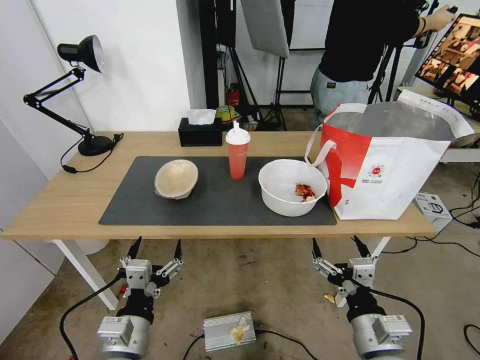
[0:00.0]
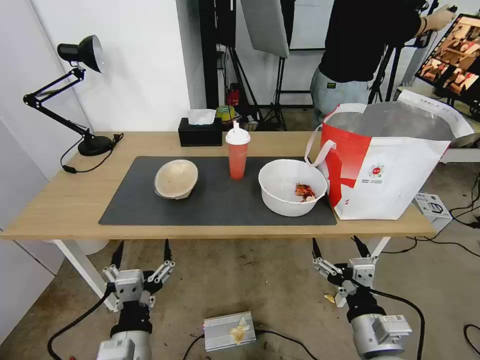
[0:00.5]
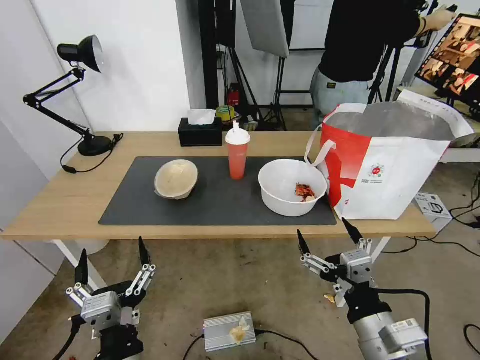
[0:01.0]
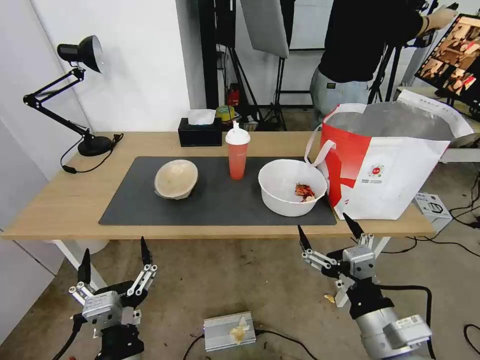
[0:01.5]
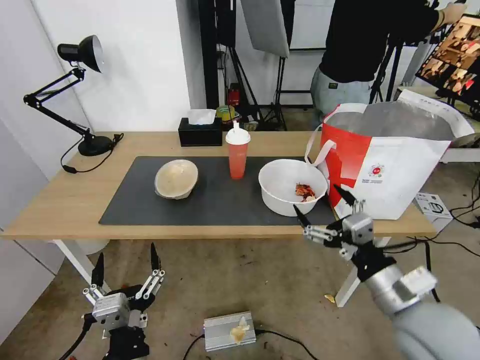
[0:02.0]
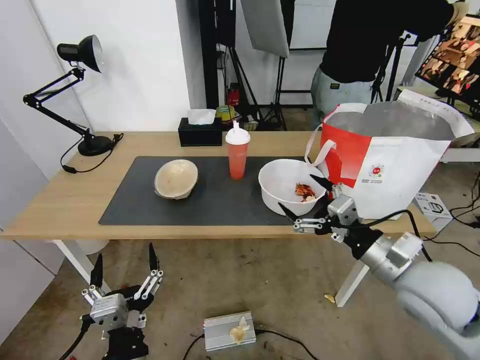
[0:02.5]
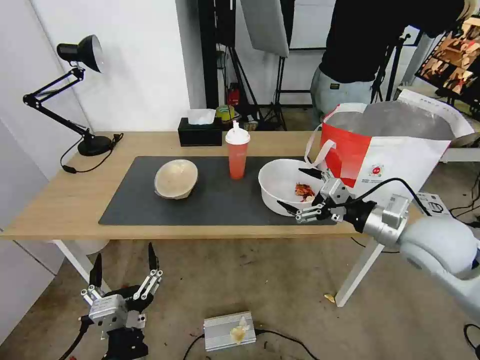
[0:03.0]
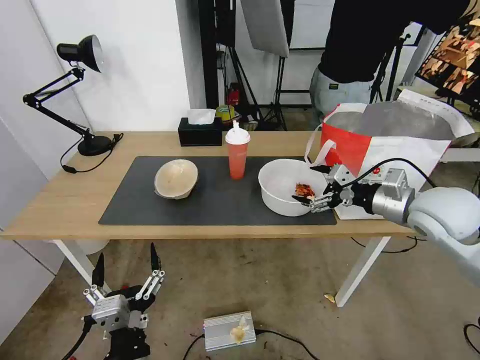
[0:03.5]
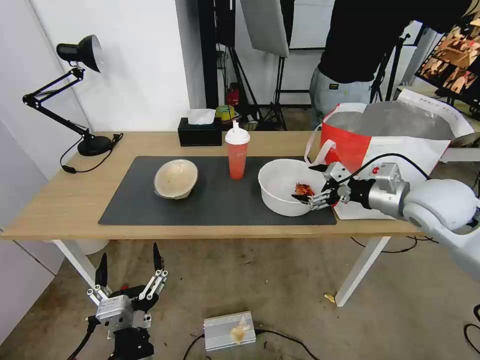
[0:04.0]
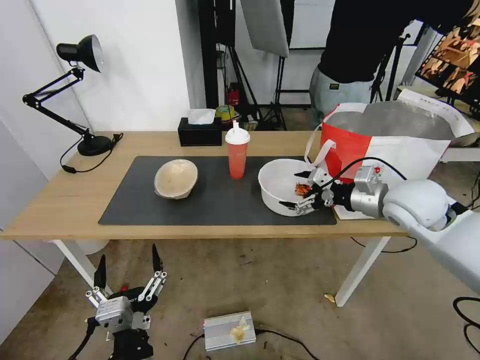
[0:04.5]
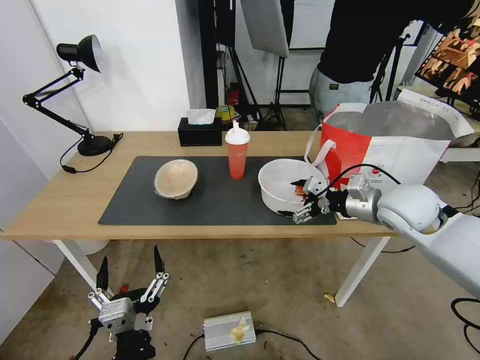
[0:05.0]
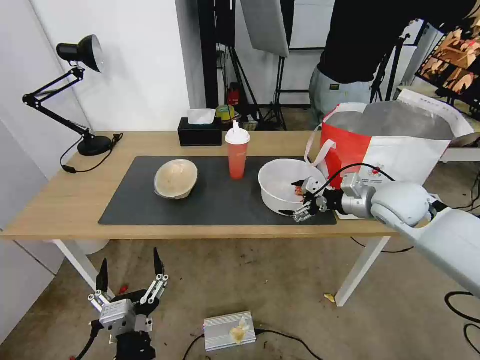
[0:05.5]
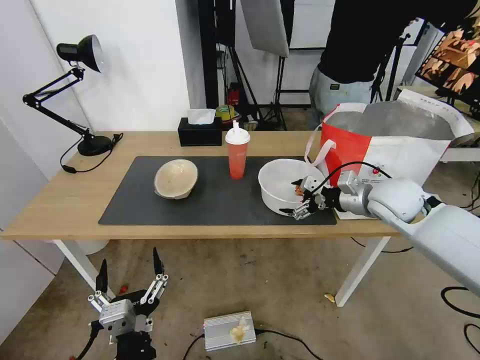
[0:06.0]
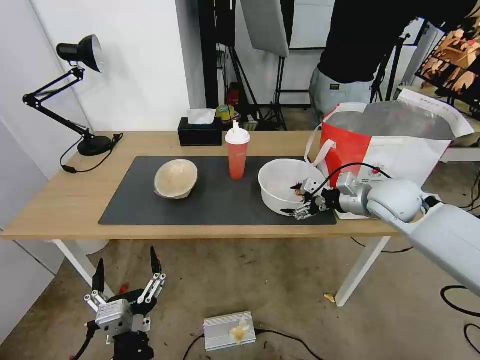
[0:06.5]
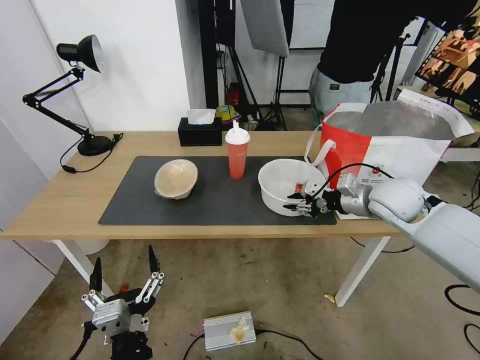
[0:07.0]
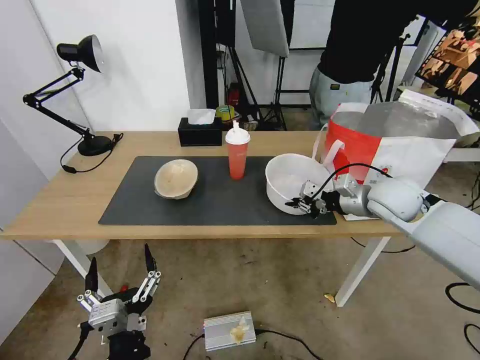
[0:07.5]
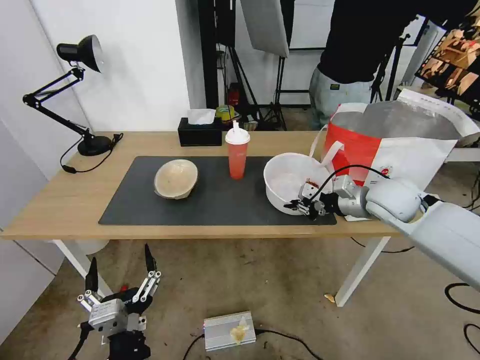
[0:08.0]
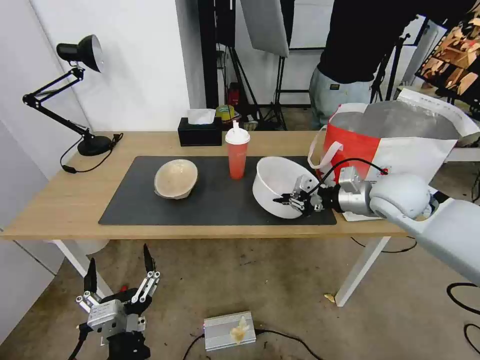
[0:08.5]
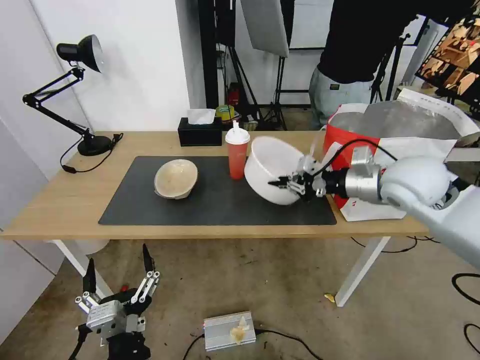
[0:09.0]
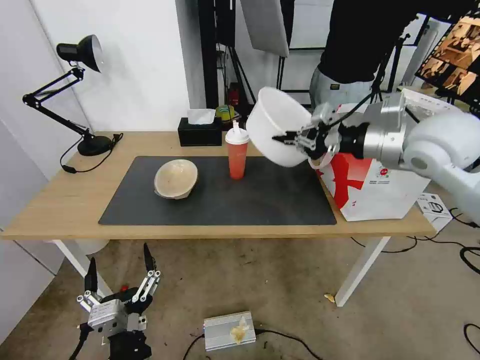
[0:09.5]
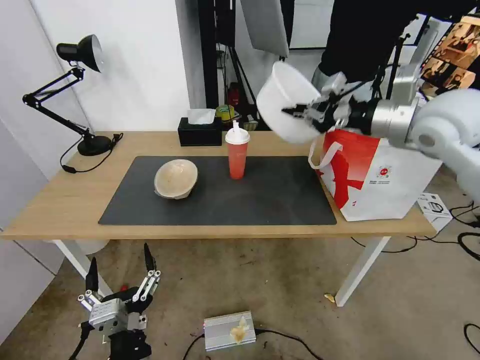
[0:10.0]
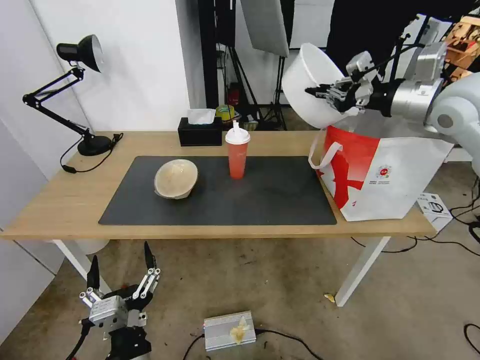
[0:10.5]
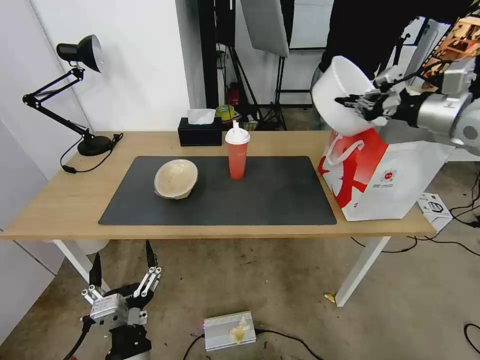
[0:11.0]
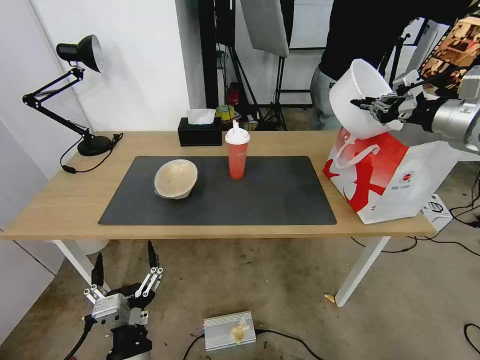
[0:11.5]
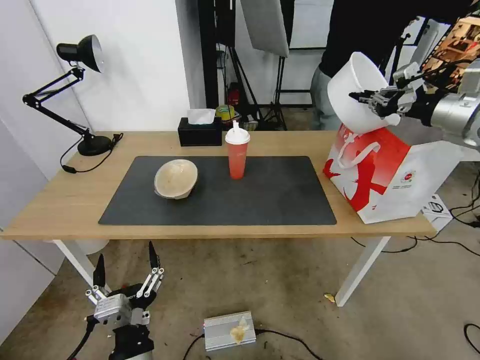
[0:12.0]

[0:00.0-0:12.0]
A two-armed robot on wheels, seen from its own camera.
Task of the whole recording: Pick up the trash from the table and place it into the takeout bag.
0:02.0 to 0:04.0: The right gripper shifts approximately 20 cm forward and to the right.
0:04.0 to 0:06.0: The right gripper travels forward by approximately 5 cm.
0:06.0 to 0:08.0: The right gripper closes up.
0:08.0 to 0:10.0: The right gripper moves upward, some 20 cm.
0:10.0 to 0:12.0: The right gripper moves to the right, about 10 cm.

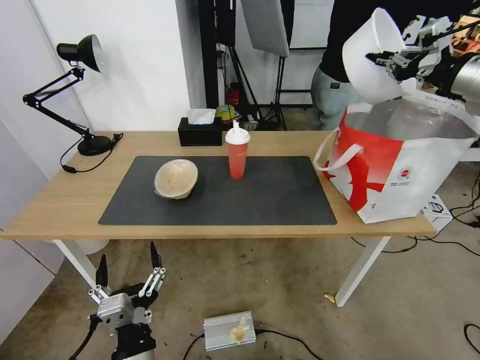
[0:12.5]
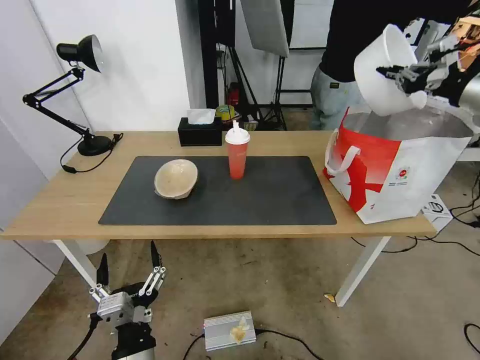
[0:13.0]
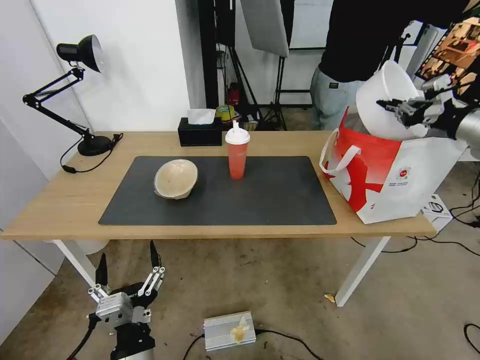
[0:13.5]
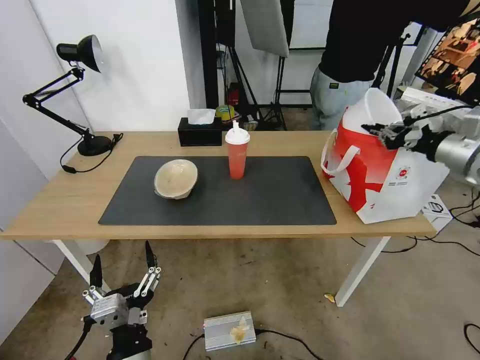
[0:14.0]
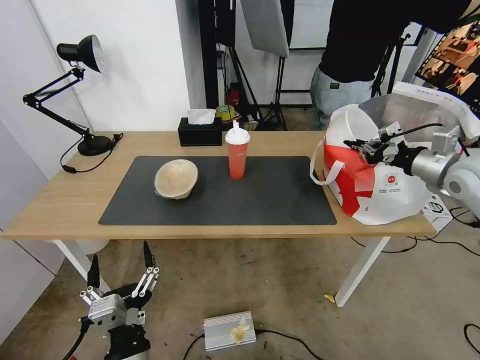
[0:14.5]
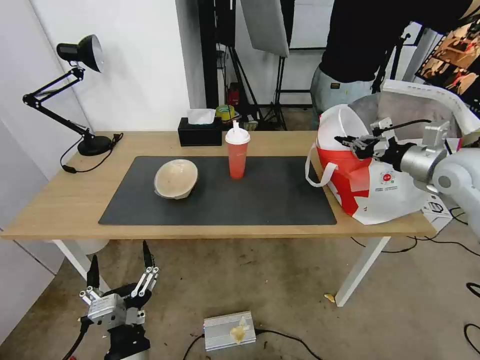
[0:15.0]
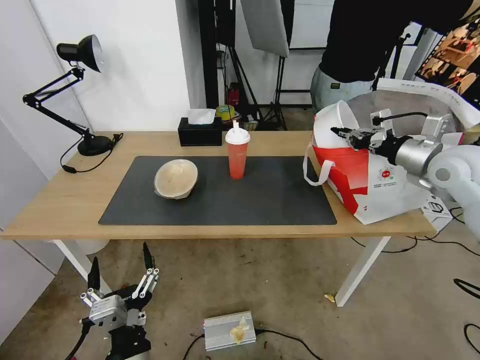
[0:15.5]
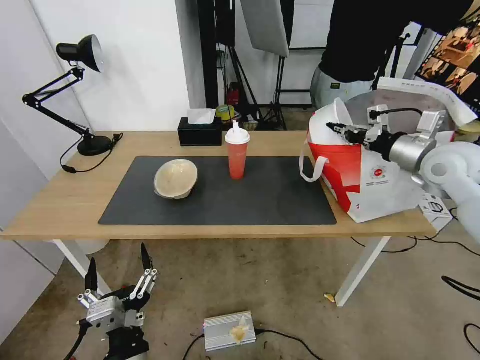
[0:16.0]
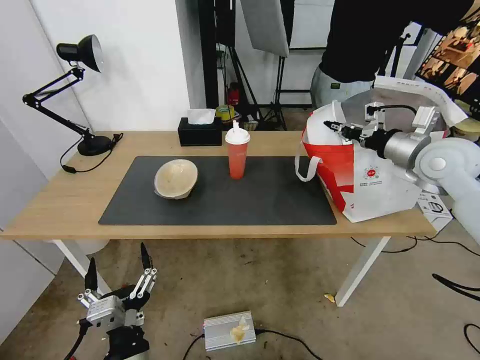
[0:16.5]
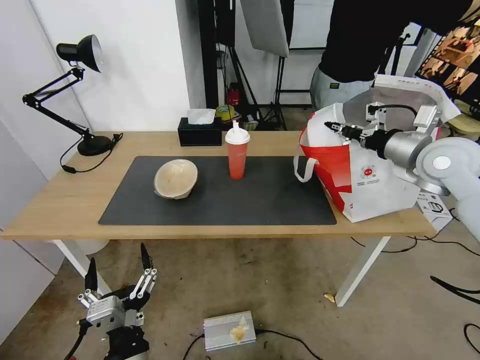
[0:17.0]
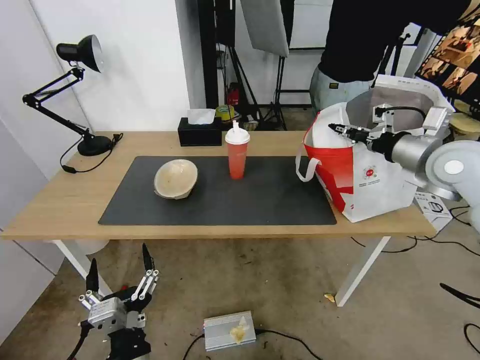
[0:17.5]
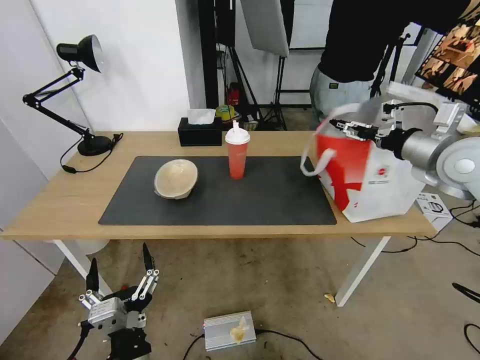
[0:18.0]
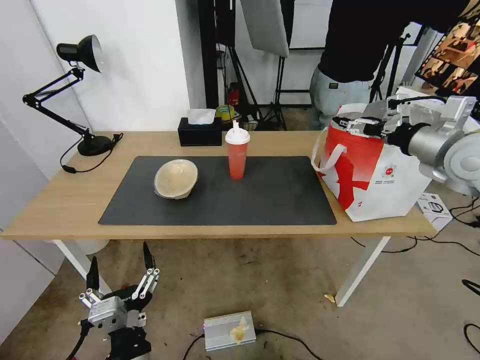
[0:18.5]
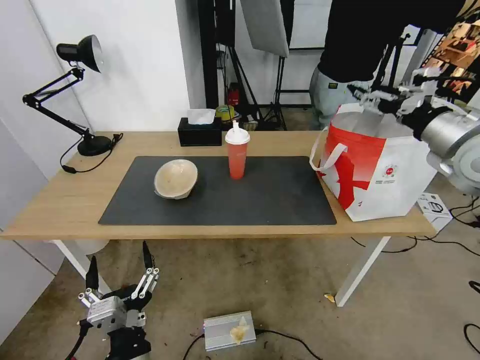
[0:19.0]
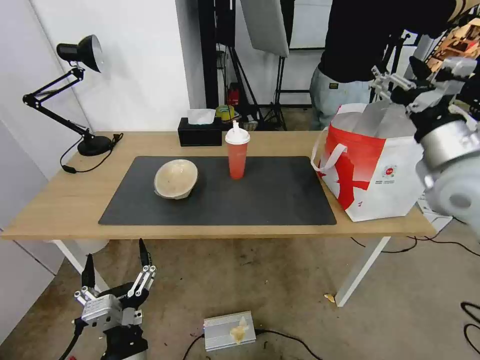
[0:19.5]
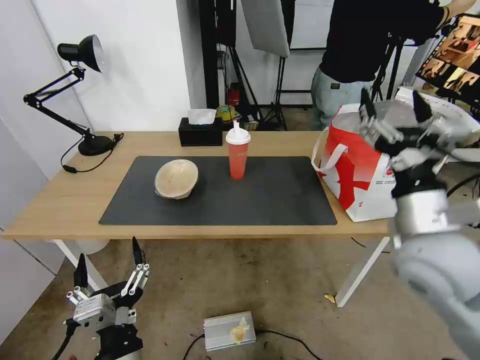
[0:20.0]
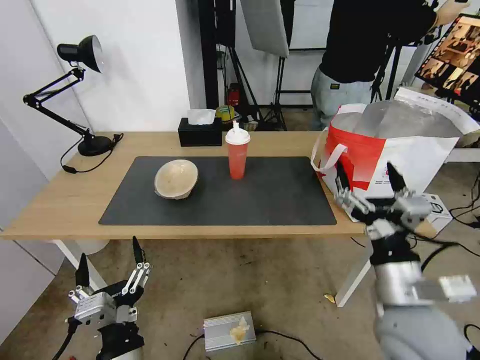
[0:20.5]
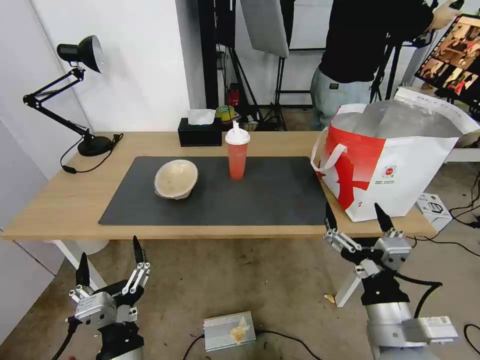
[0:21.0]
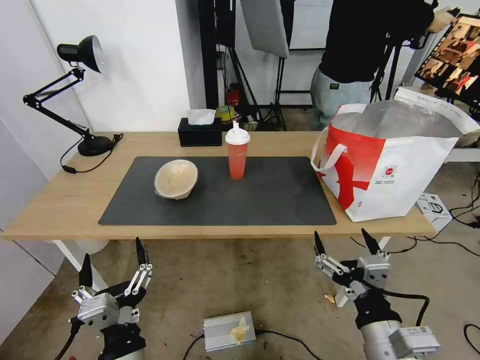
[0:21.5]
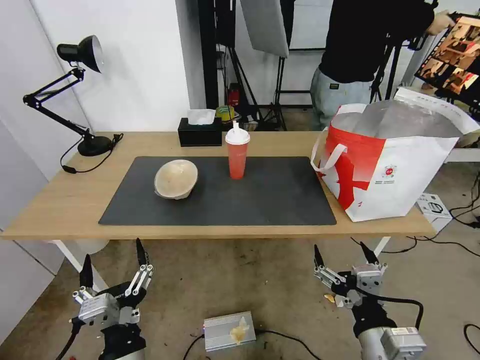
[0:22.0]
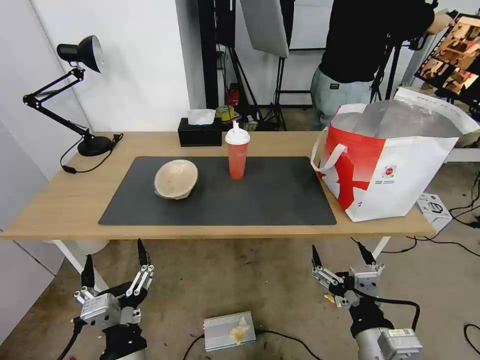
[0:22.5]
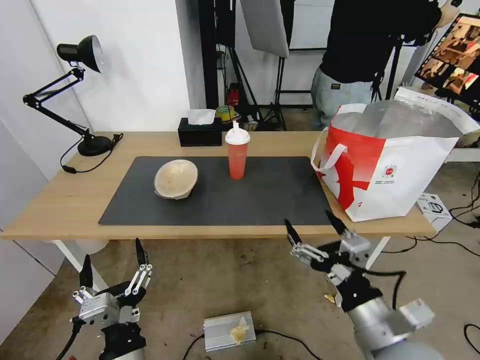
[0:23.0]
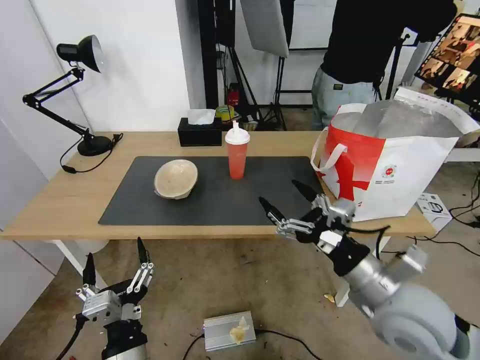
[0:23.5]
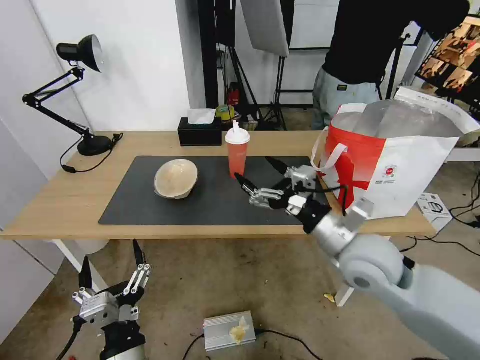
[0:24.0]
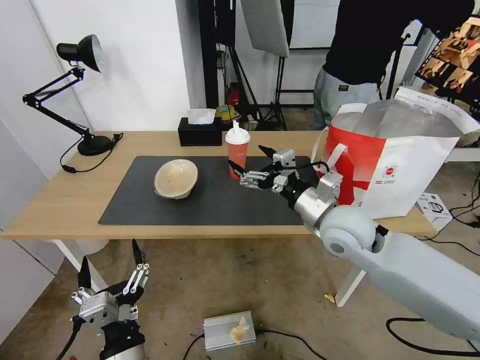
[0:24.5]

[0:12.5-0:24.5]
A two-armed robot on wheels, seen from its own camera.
Task of the whole recording: Pick up the trash from the table and place it into the takeout bag.
0:12.5 to 0:14.5: The right gripper heads downward, covering some 15 cm.
0:14.5 to 0:16.5: The right gripper heads to the left, covering approximately 5 cm.
0:16.5 to 0:18.5: The right gripper moves some 5 cm, and opens.
0:18.5 to 0:20.5: The right gripper moves backward, to the left and downward, some 30 cm.
0:20.5 to 0:22.5: The right gripper shifts some 10 cm backward and downward.
0:22.5 to 0:24.5: The right gripper is displaced forward by about 25 cm.

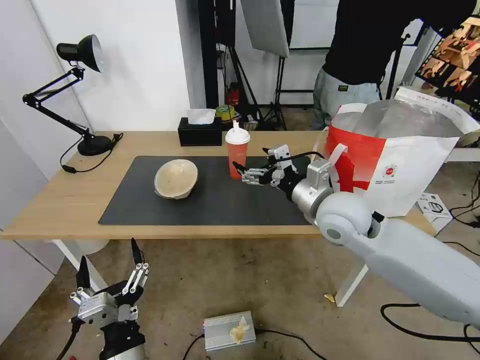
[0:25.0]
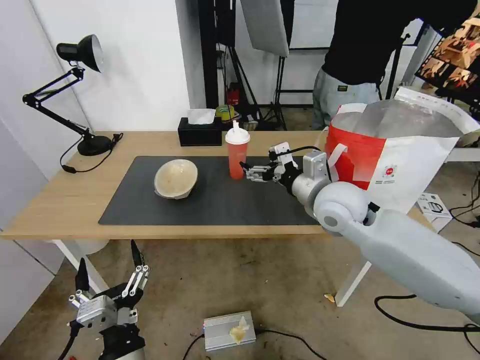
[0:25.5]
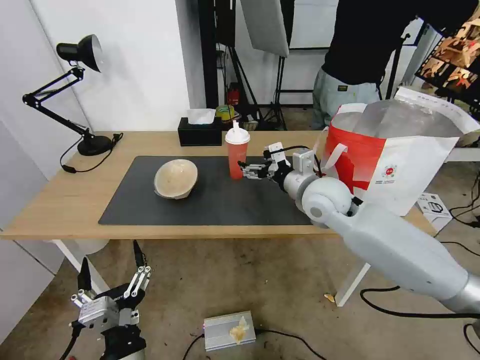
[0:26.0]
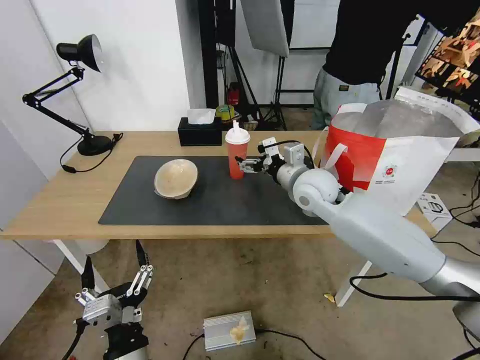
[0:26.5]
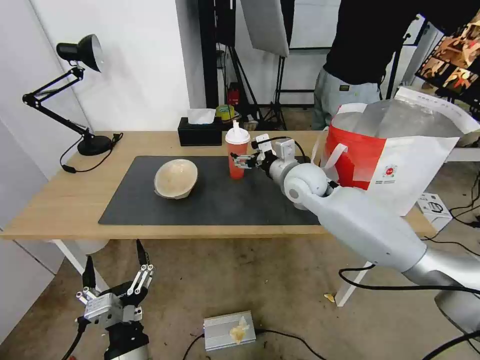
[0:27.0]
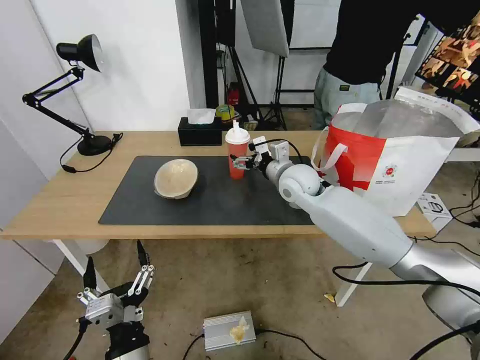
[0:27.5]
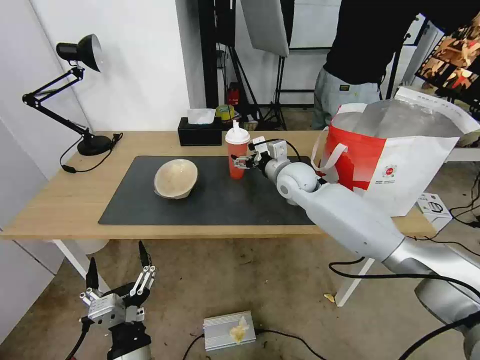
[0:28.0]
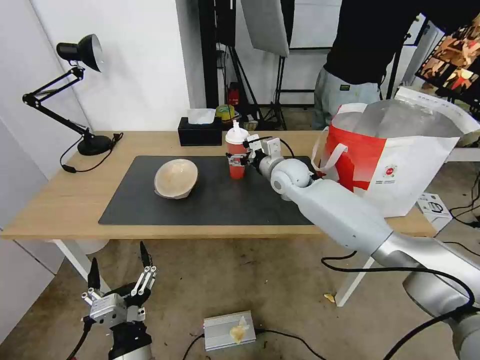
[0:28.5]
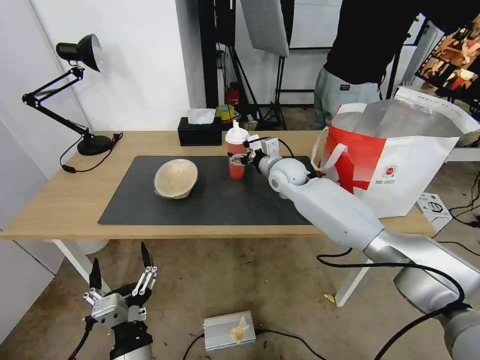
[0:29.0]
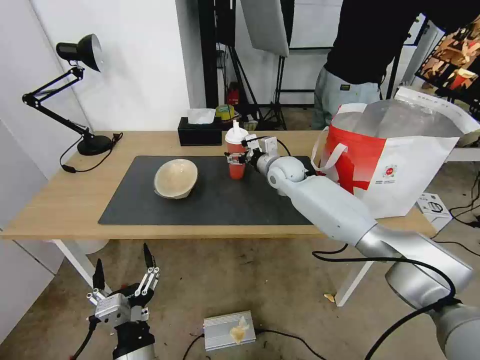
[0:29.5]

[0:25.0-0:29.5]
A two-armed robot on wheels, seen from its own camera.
Task of the whole recording: Pick up the trash from the table and place it into the takeout bag.
0:25.0 to 0:27.0: The right gripper travels forward by roughly 10 cm.
0:27.0 to 0:29.5: The right gripper moves forward, roughly 10 cm.
